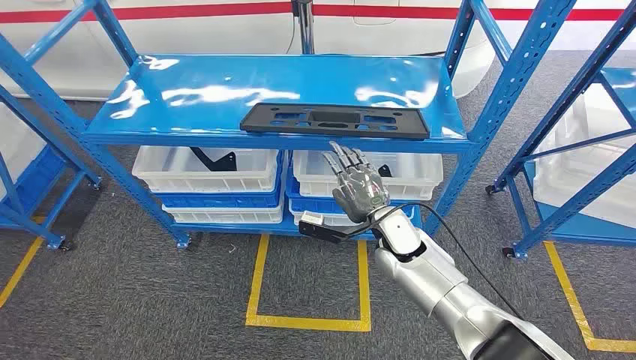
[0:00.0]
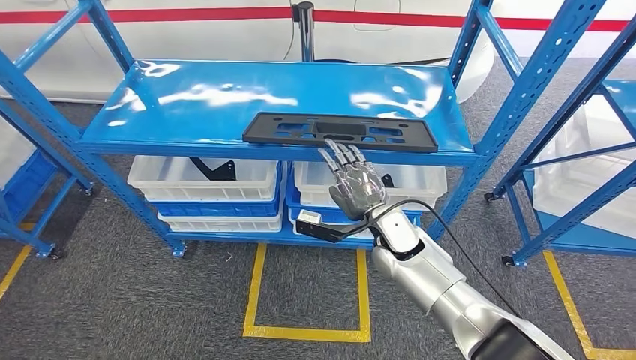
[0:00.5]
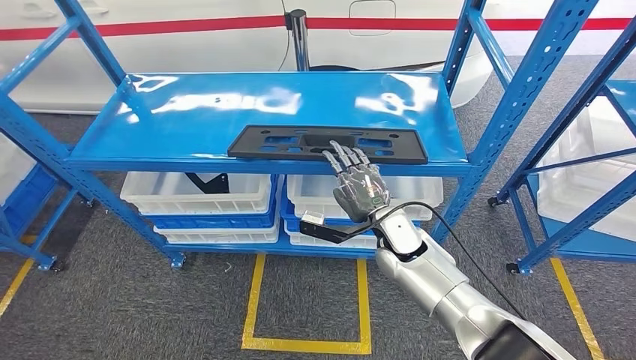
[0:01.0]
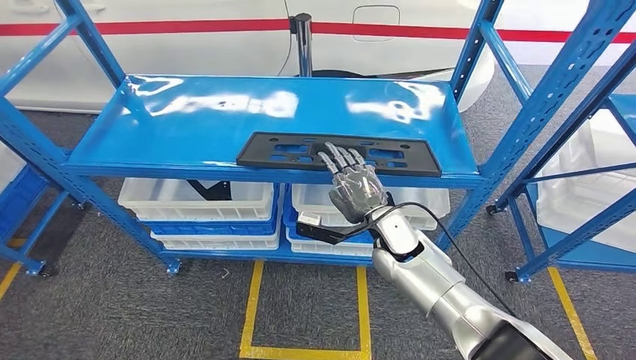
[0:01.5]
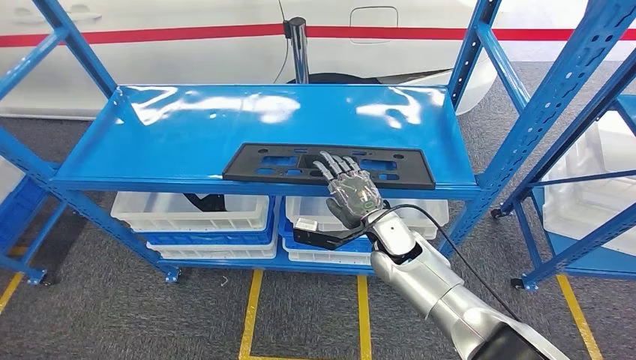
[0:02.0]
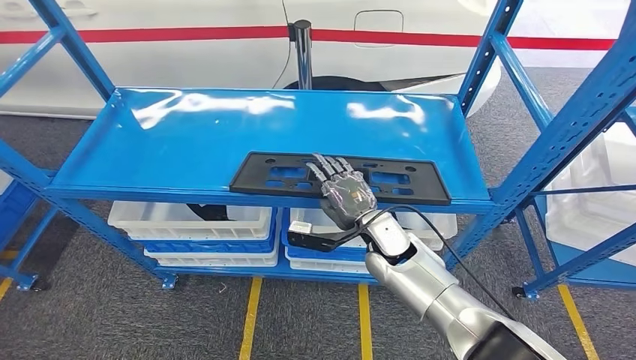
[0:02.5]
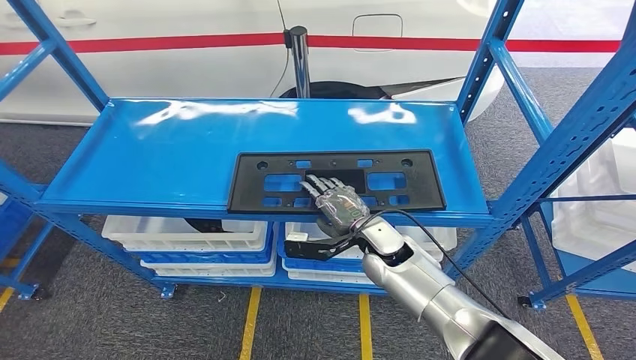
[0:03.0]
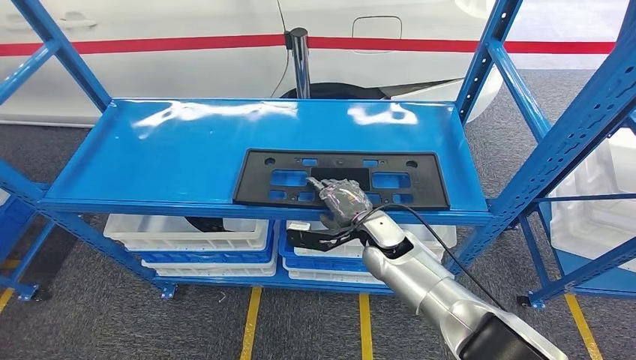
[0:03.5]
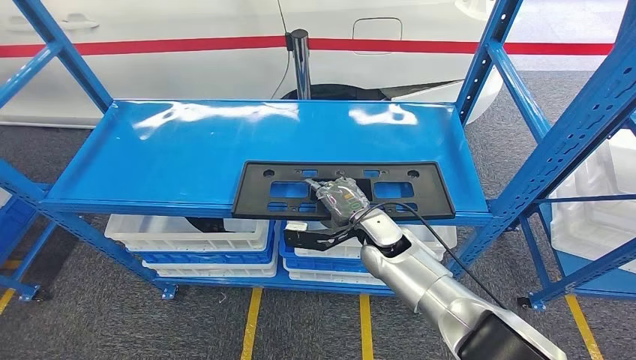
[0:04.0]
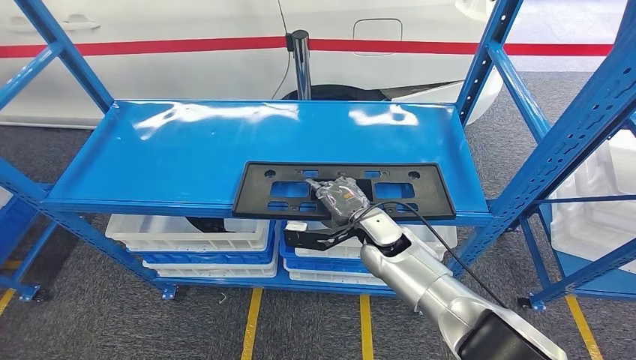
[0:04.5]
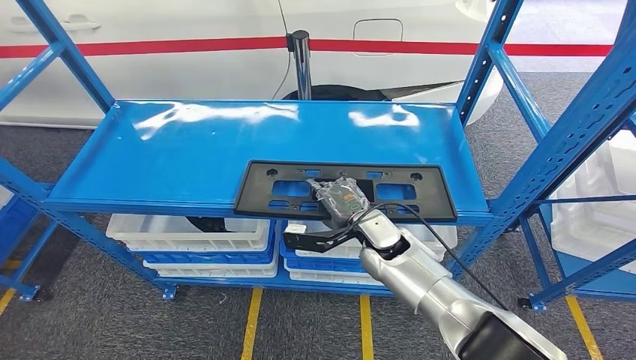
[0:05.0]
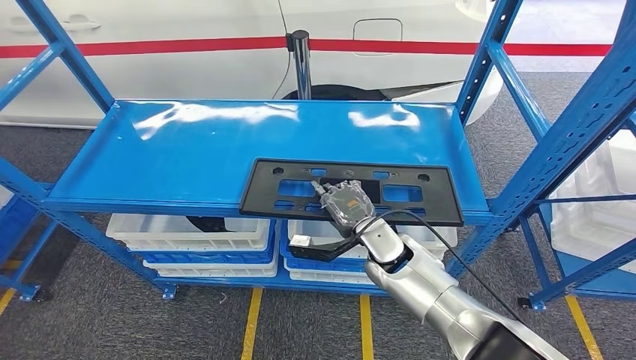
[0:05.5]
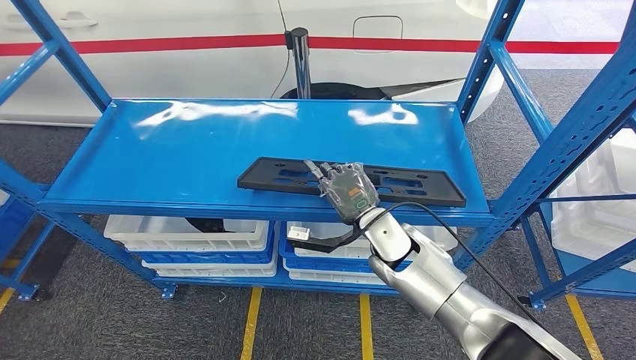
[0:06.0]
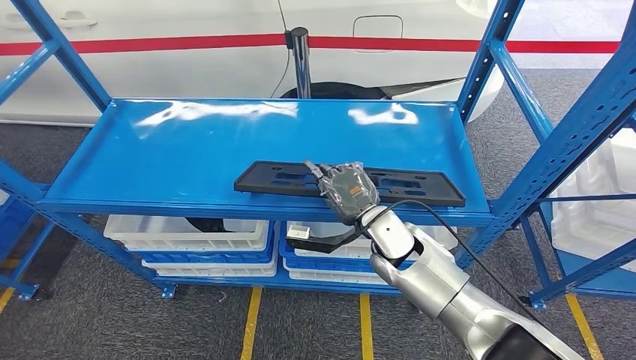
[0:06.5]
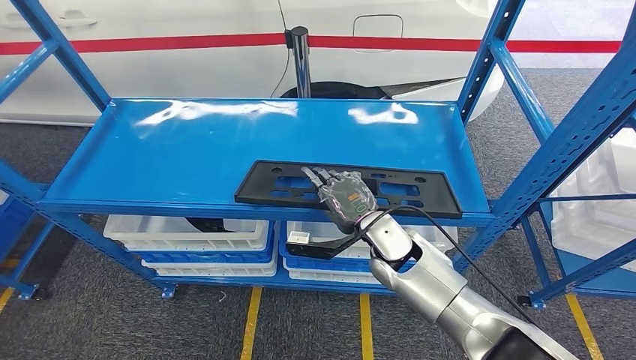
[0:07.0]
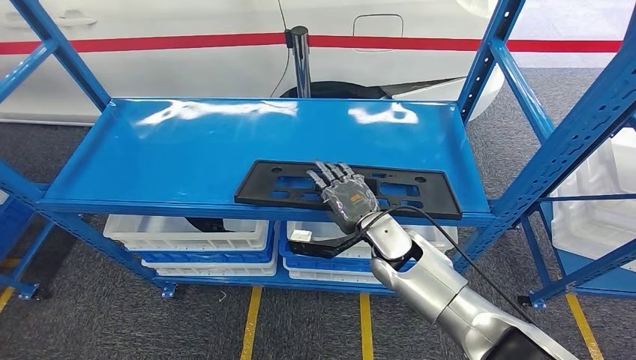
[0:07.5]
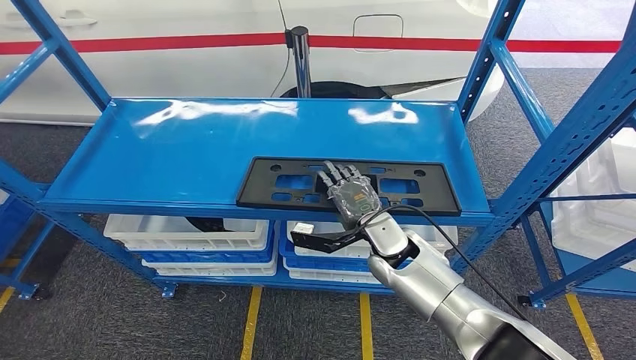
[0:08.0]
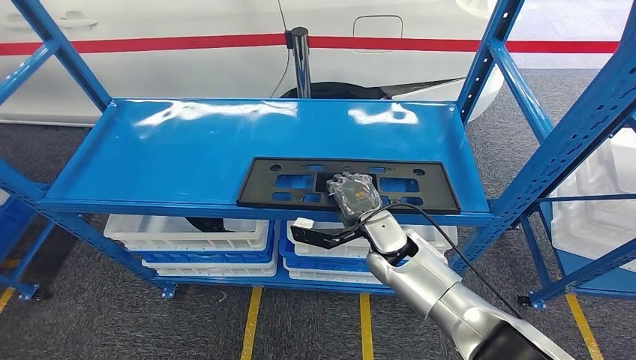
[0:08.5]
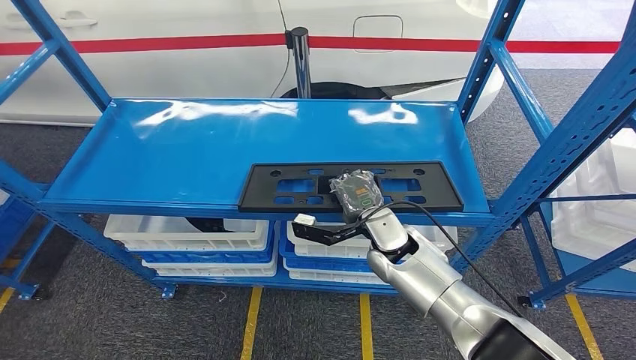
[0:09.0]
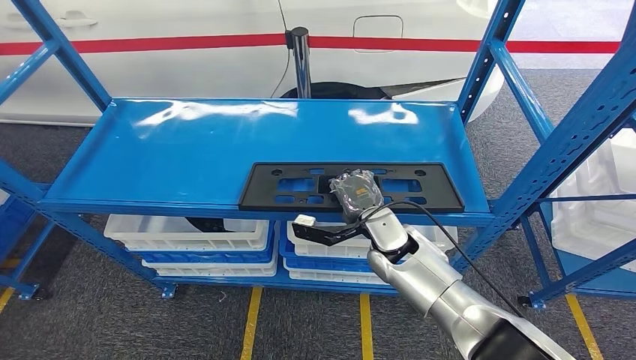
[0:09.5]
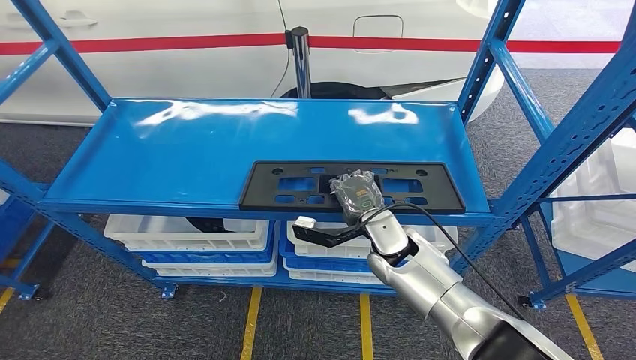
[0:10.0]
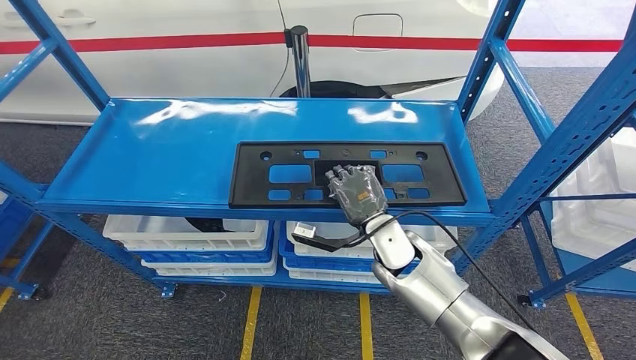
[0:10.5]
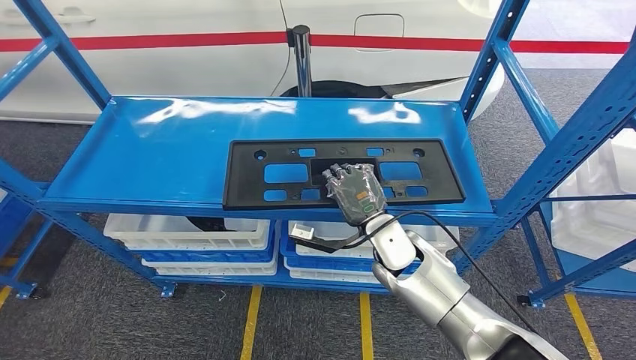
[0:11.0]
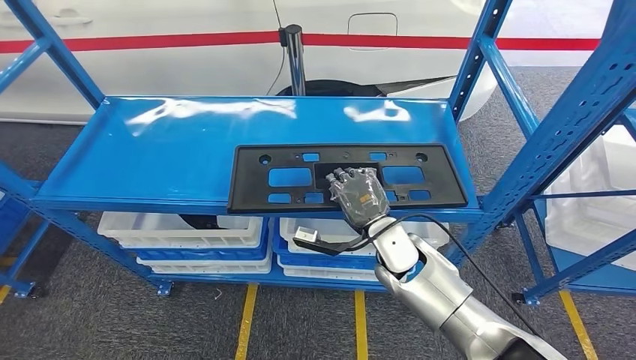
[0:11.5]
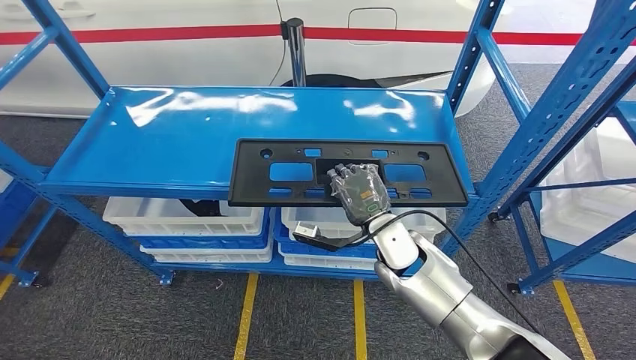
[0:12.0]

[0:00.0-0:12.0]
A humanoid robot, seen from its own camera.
0:08.0 to 0:10.0: Neither hand changes place.

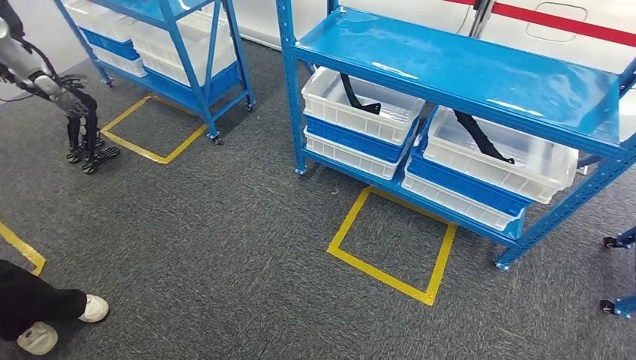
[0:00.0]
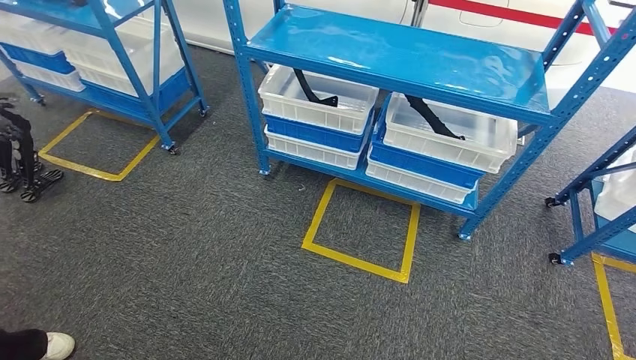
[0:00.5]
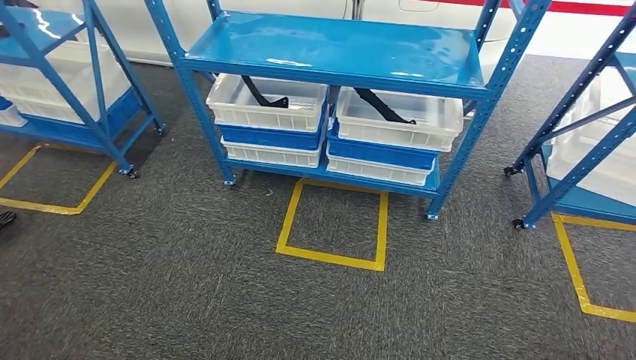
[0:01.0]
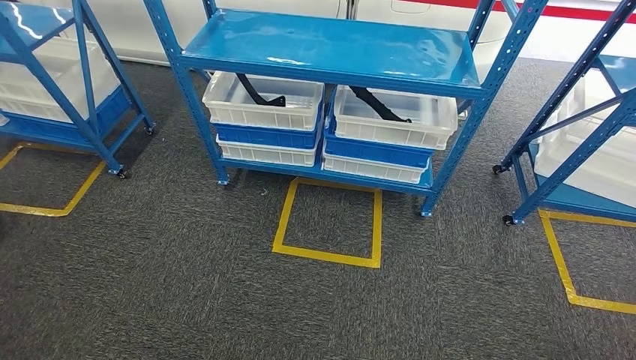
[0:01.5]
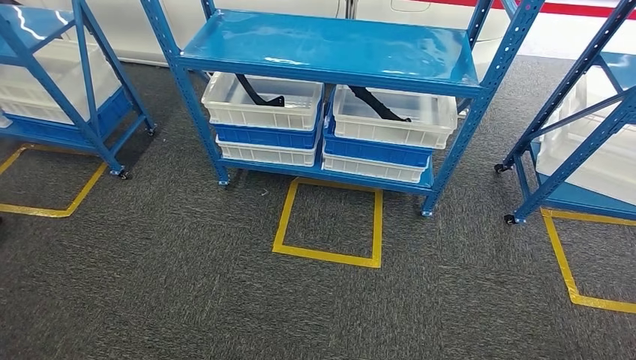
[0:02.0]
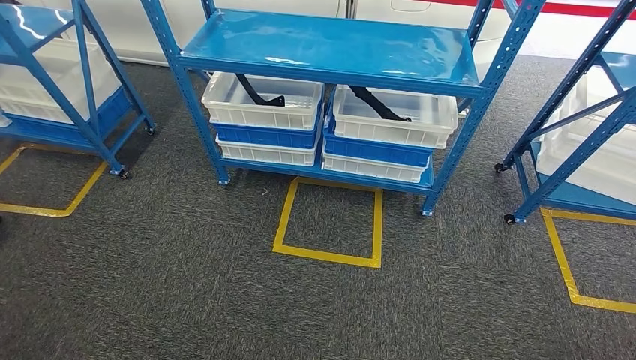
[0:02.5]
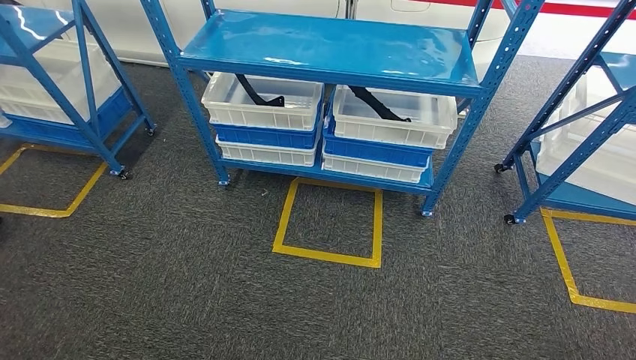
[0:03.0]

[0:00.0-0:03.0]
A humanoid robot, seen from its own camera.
Step, 0:00.0 to 0:03.0: Move to the initial position of the shelf.
0:01.5 to 0:03.0: Both hands move backward, roughly 5 cm.

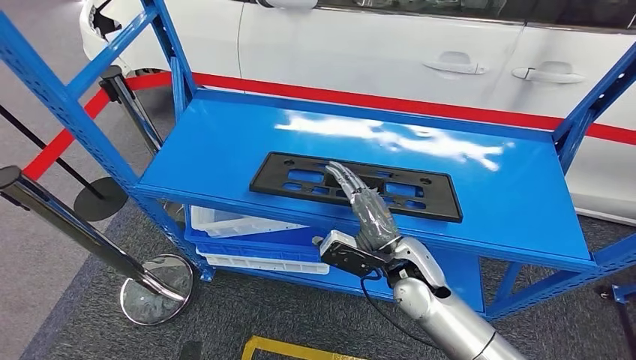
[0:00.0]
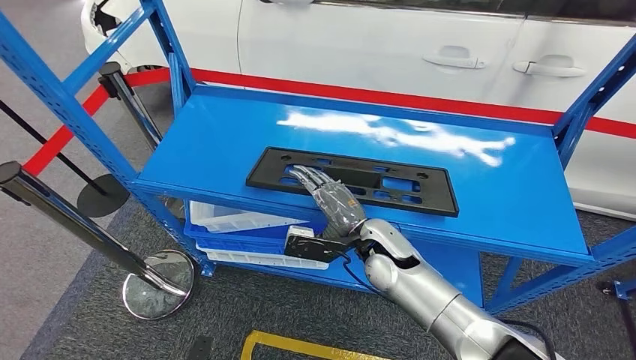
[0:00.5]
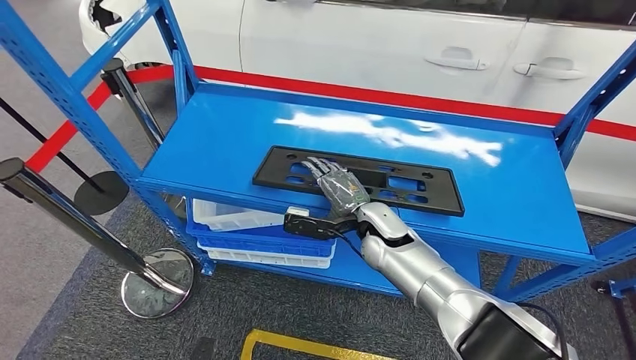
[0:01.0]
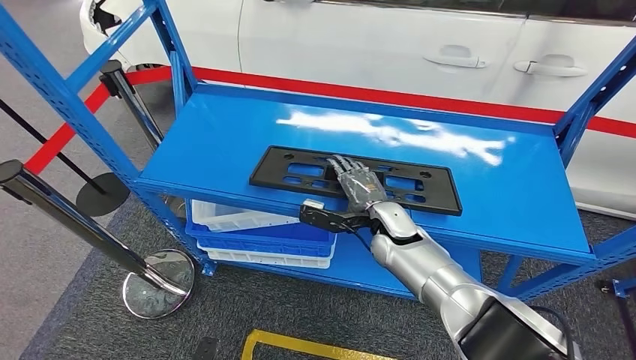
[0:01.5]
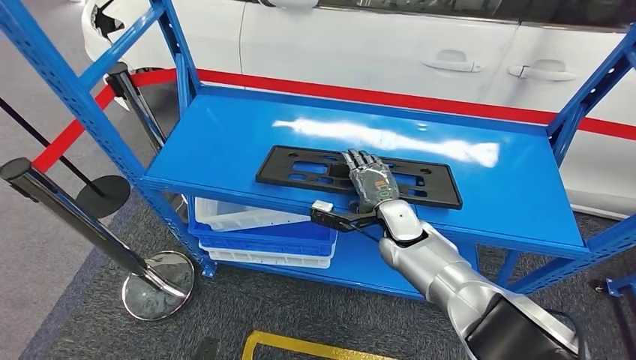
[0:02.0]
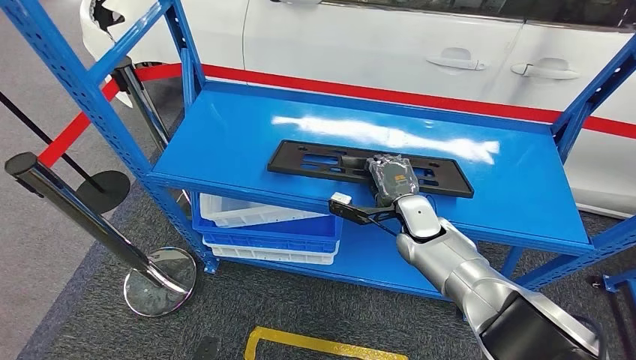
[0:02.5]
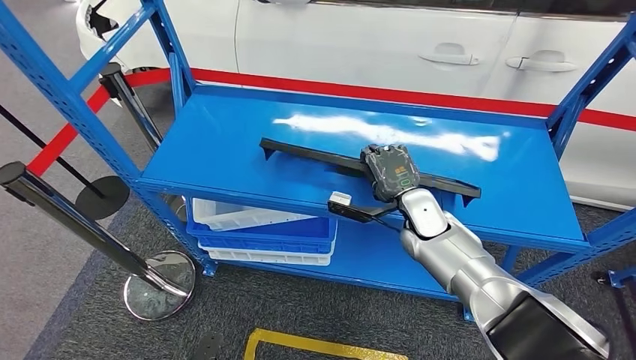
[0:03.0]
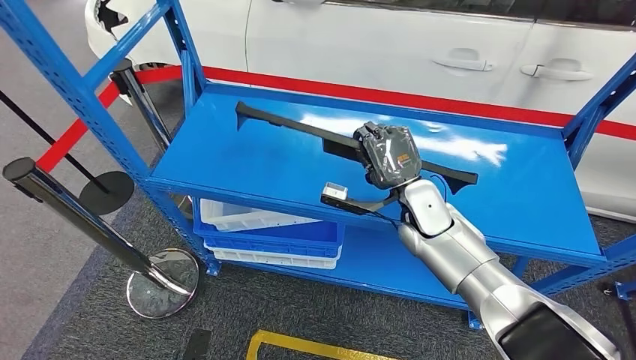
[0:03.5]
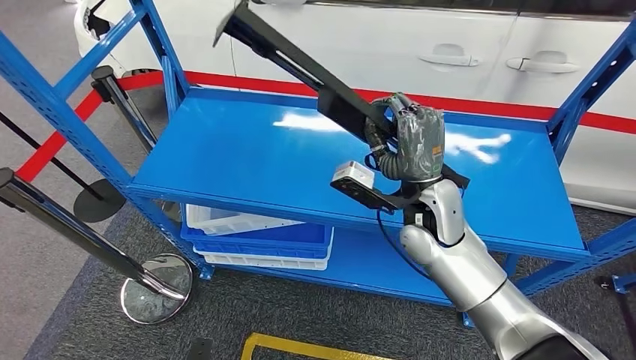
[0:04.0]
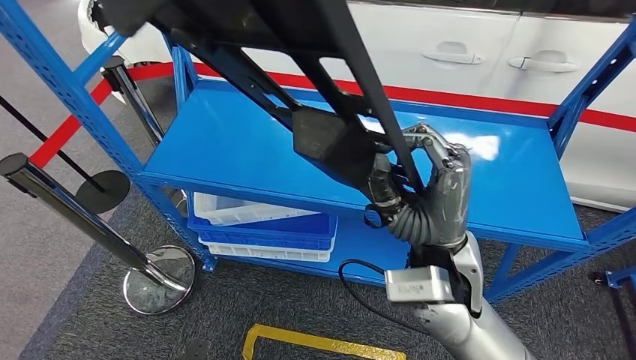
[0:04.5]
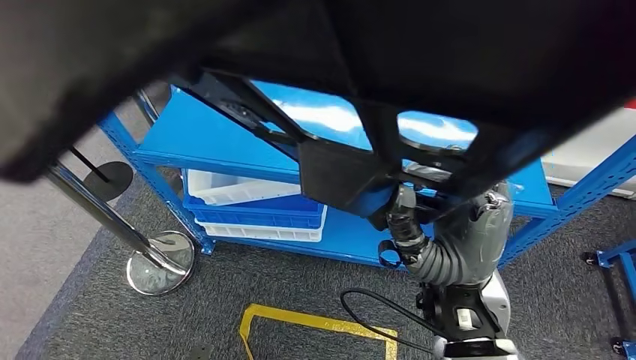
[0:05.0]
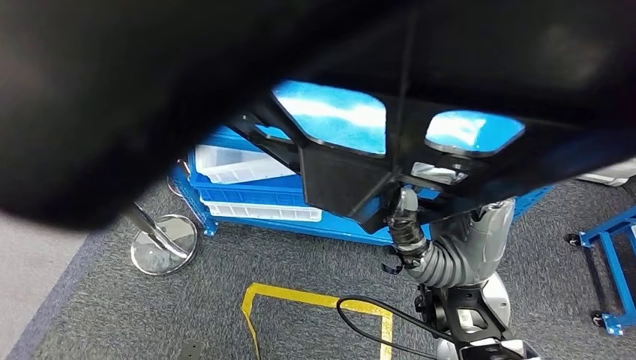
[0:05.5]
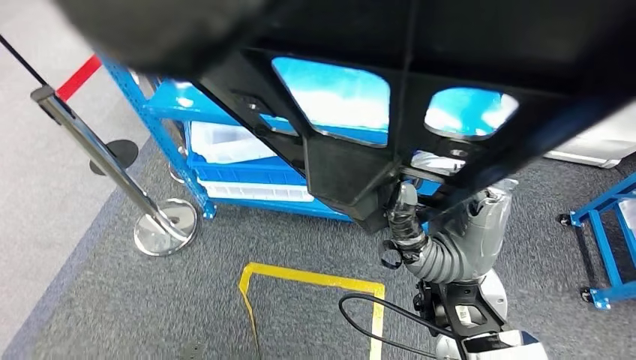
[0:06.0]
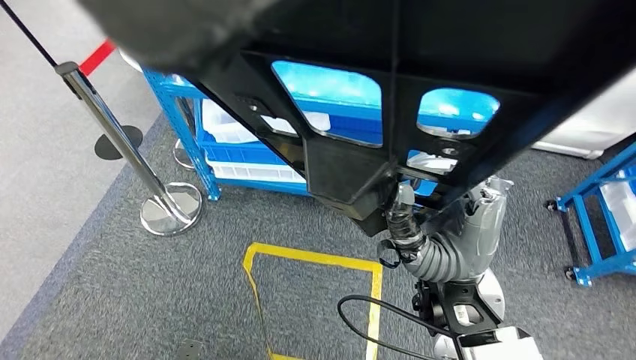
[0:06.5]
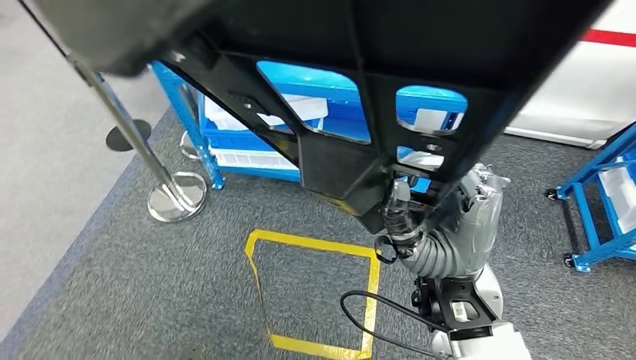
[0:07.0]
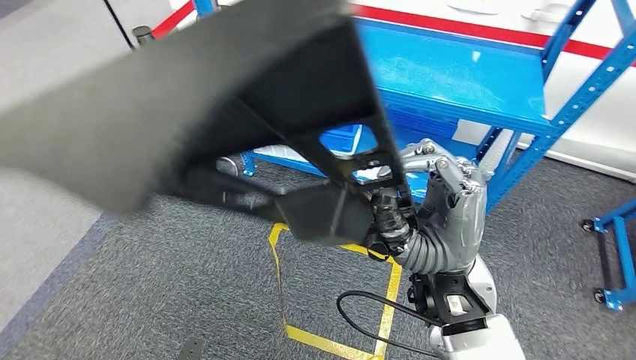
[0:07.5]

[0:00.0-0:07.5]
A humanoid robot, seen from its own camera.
Step, 0:00.0 to 0:05.5: Pick up the large material from the shelf.
